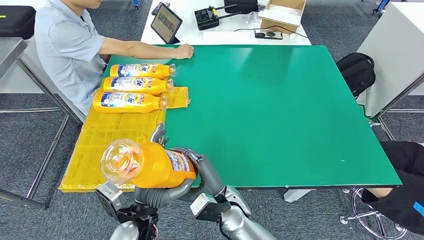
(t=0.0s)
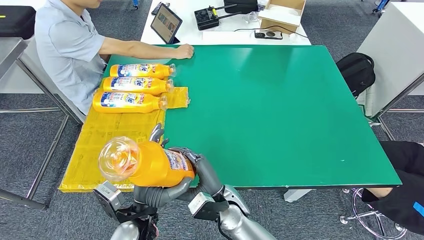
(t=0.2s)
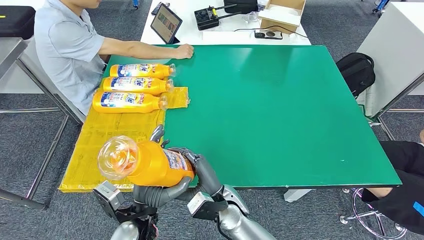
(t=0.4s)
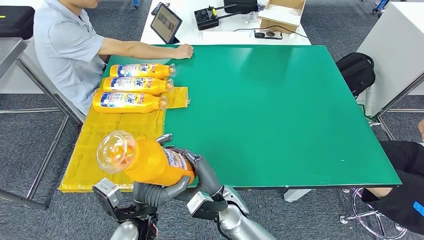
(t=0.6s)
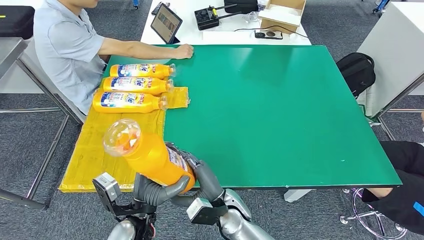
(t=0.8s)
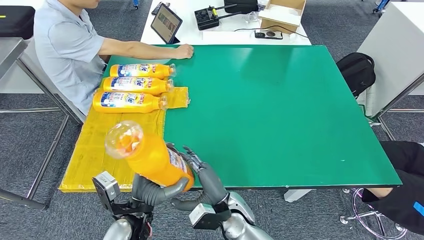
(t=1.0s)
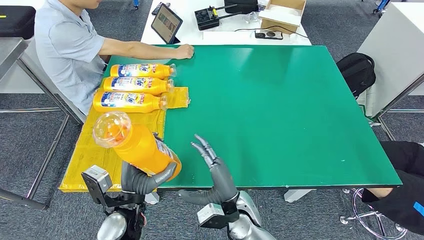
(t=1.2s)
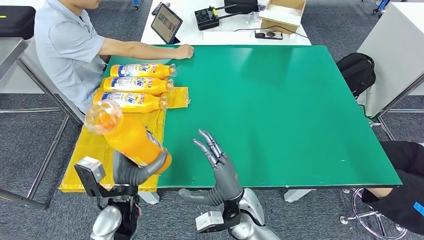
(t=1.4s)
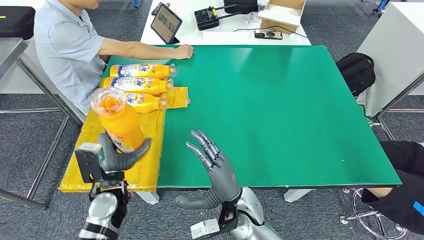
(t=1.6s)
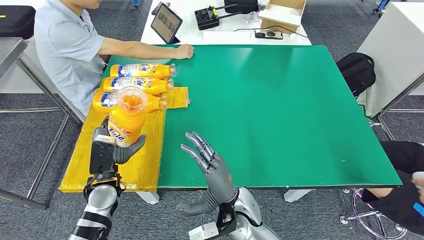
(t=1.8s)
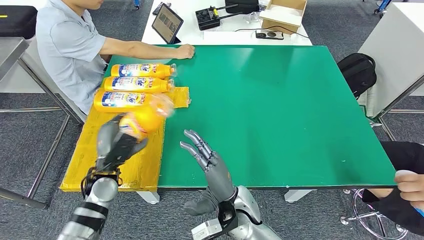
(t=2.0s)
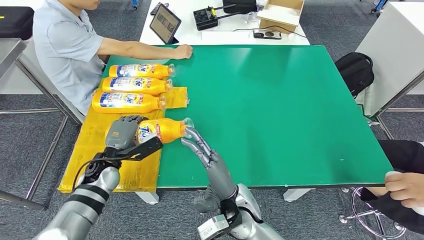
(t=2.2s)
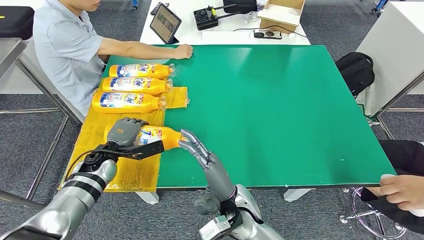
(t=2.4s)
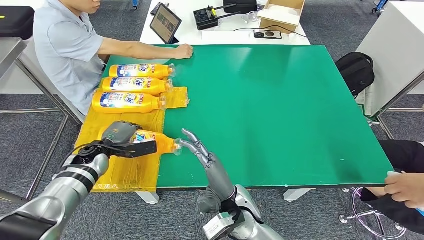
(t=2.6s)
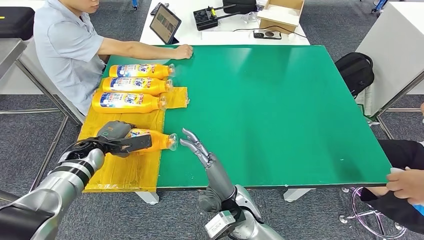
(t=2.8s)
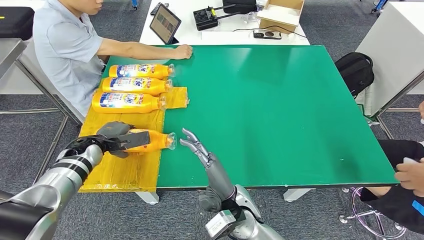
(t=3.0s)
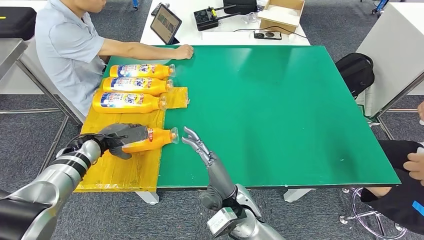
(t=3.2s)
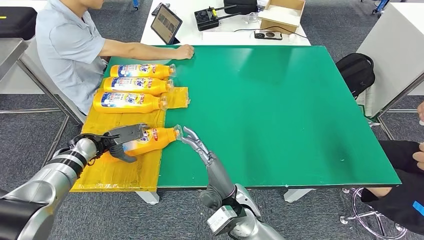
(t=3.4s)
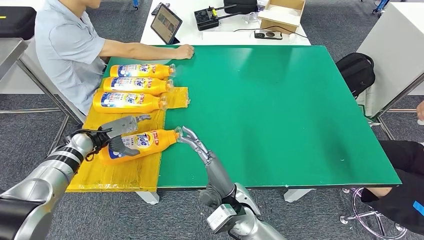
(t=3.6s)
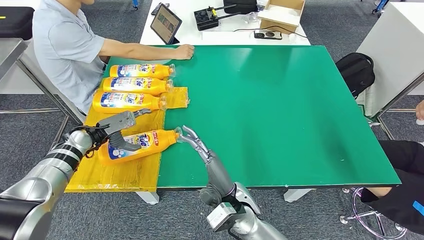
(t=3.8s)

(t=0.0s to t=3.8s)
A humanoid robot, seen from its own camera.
Step, t=0.4s - t=3.8s: Flip the fast-moving consumer goods bottle to the front side.
t=0.0s - t=1.2s: There are only small adjustments of the hands.
t=1.2s - t=2.6s: The left hand moves forward and to the left, some 25 cm. The right hand goes roughly 5 cm upward.
t=2.6s - t=3.8s: The left hand moves approximately 5 cm.

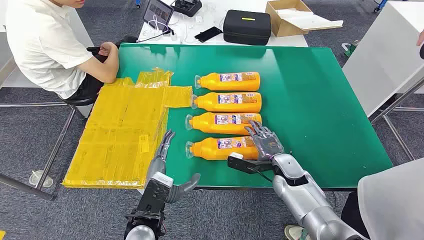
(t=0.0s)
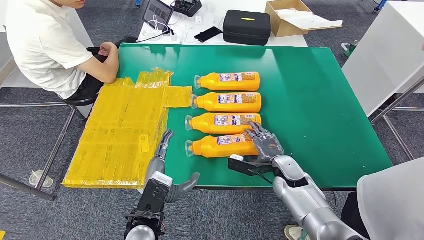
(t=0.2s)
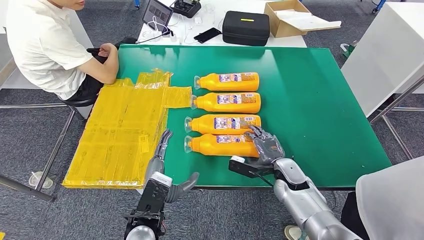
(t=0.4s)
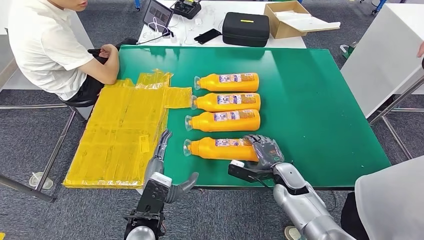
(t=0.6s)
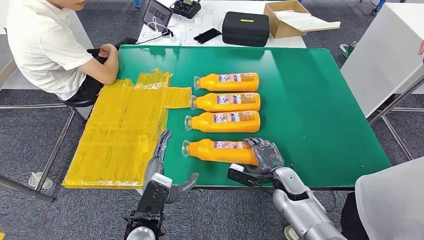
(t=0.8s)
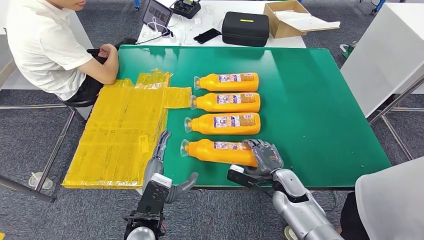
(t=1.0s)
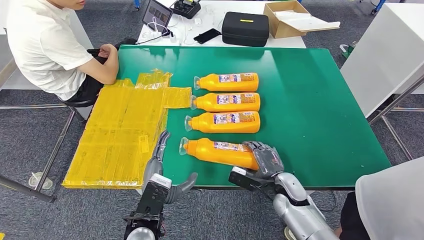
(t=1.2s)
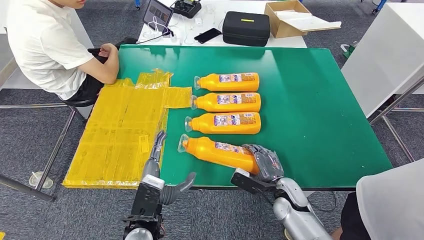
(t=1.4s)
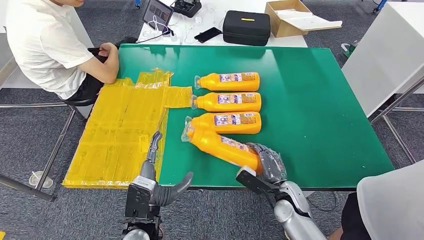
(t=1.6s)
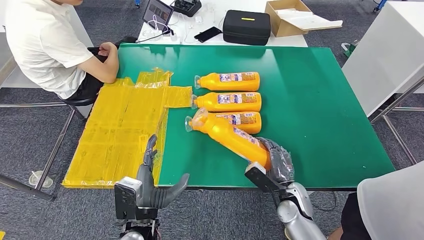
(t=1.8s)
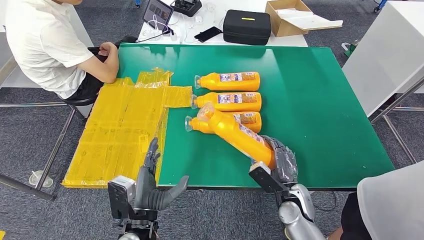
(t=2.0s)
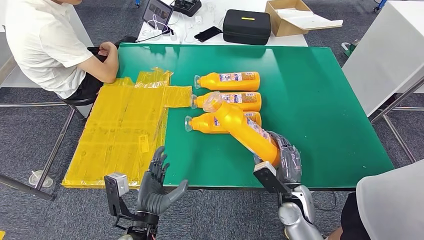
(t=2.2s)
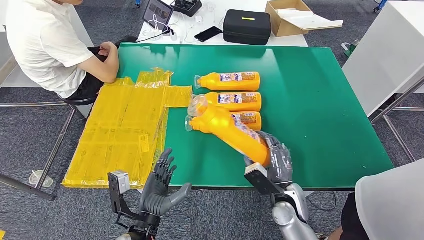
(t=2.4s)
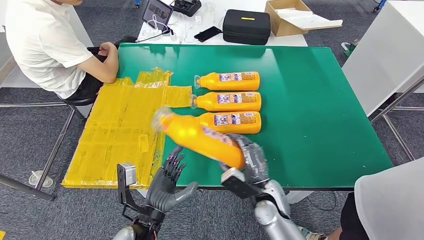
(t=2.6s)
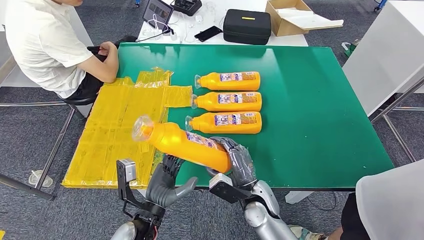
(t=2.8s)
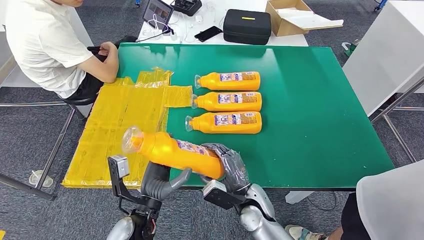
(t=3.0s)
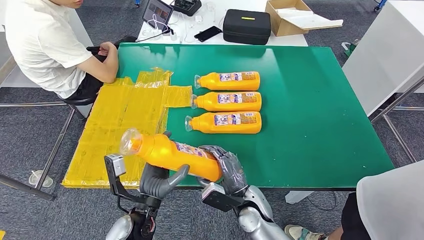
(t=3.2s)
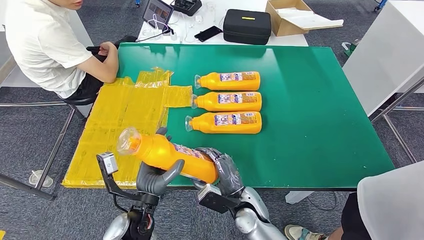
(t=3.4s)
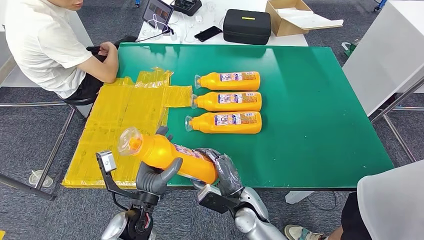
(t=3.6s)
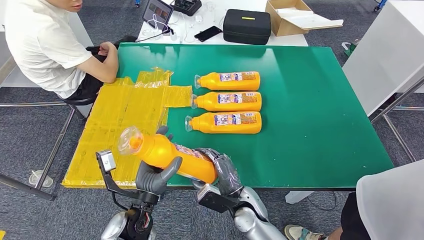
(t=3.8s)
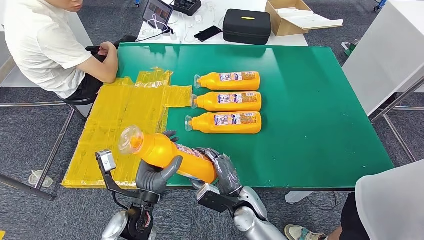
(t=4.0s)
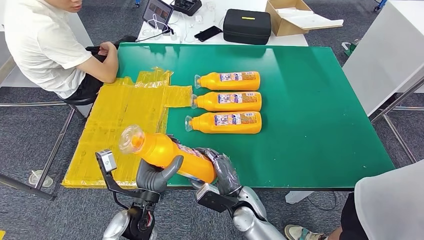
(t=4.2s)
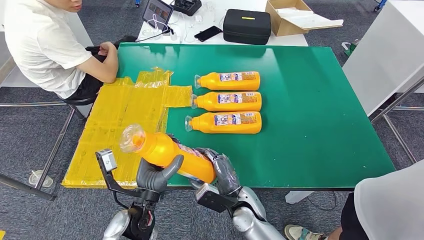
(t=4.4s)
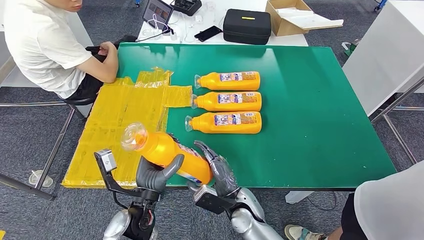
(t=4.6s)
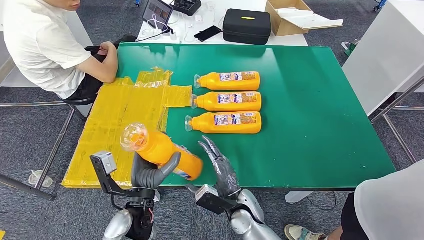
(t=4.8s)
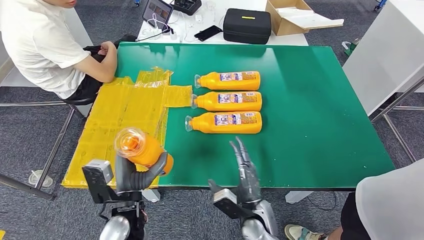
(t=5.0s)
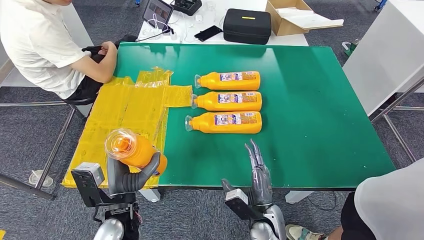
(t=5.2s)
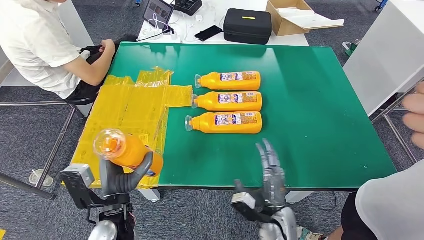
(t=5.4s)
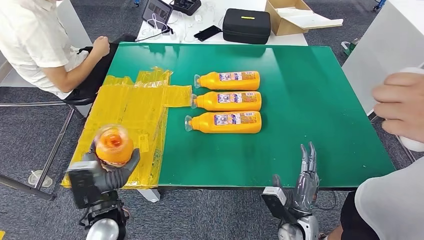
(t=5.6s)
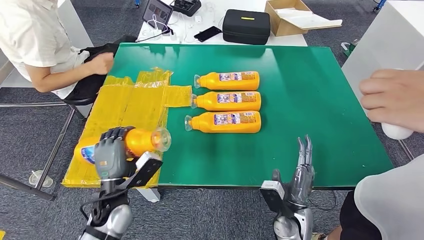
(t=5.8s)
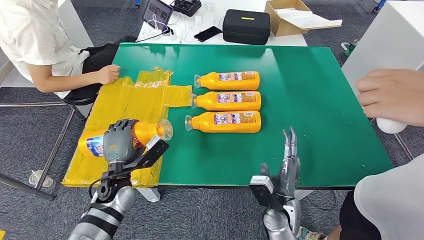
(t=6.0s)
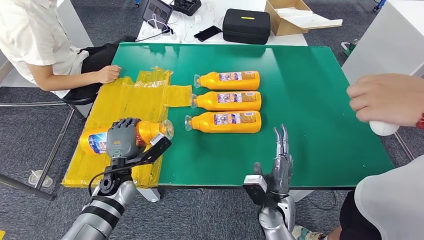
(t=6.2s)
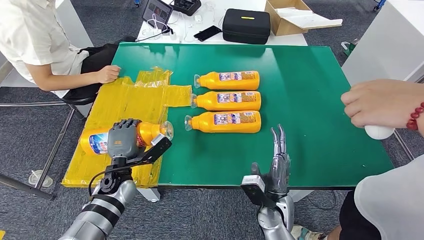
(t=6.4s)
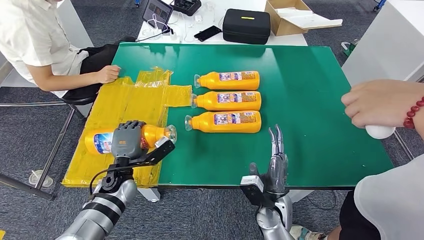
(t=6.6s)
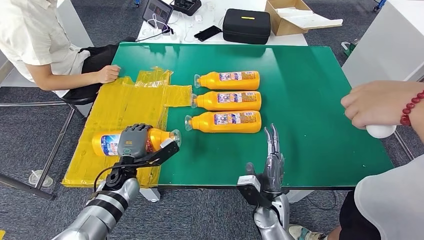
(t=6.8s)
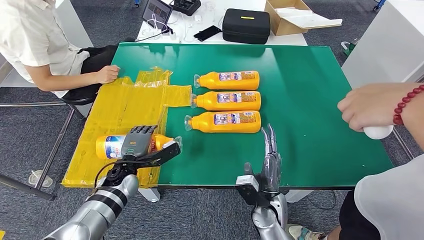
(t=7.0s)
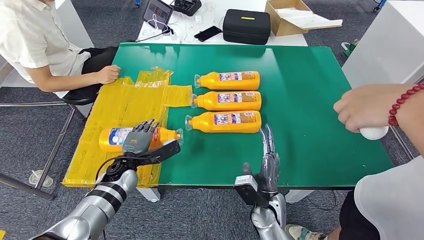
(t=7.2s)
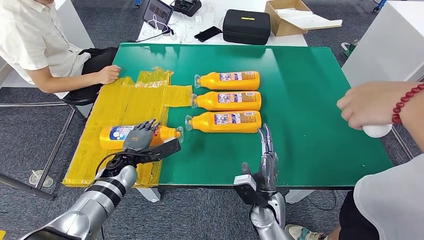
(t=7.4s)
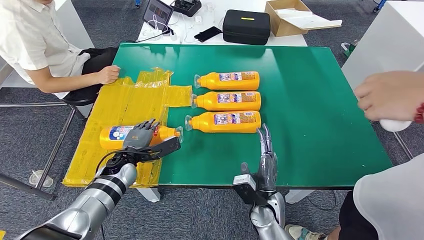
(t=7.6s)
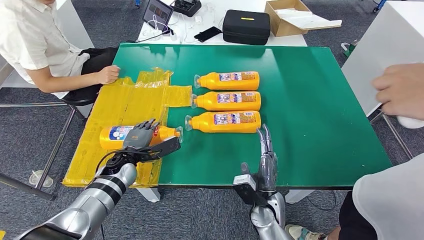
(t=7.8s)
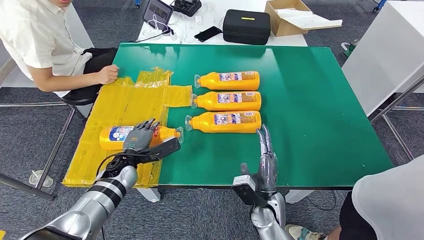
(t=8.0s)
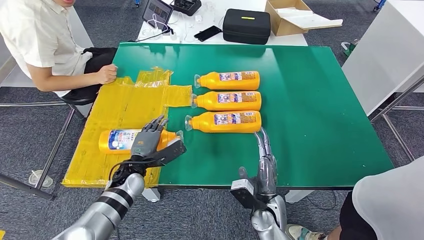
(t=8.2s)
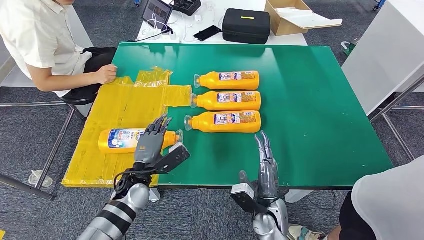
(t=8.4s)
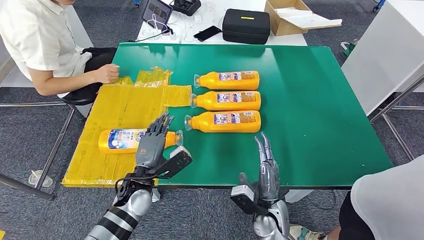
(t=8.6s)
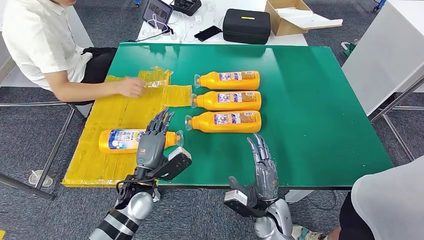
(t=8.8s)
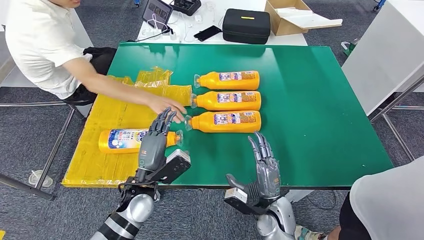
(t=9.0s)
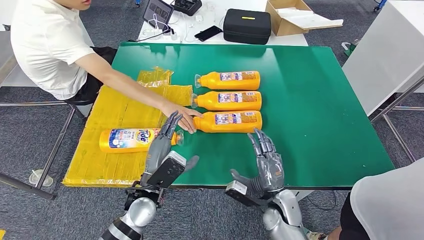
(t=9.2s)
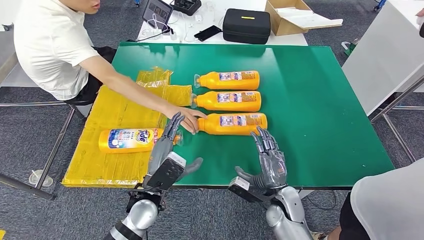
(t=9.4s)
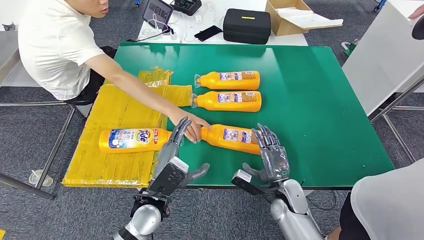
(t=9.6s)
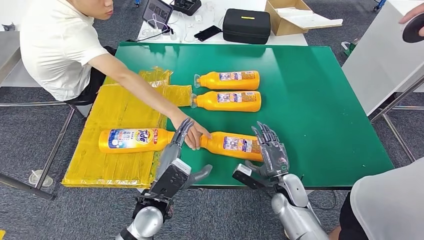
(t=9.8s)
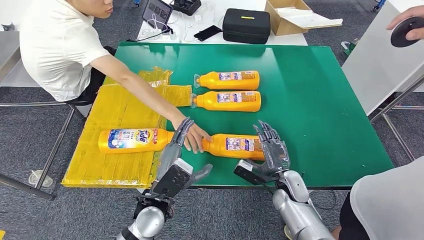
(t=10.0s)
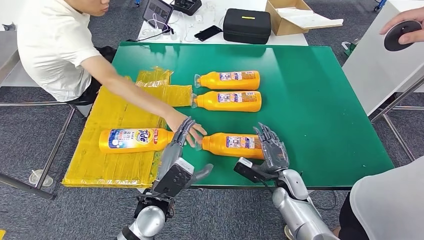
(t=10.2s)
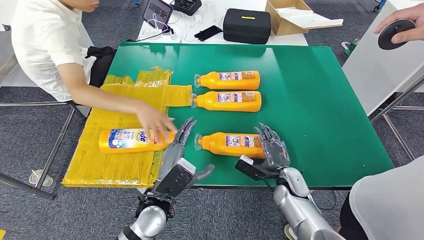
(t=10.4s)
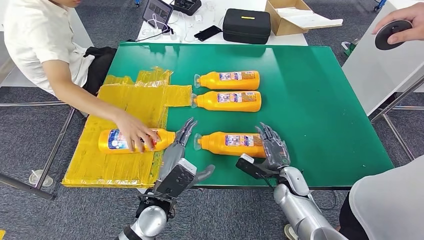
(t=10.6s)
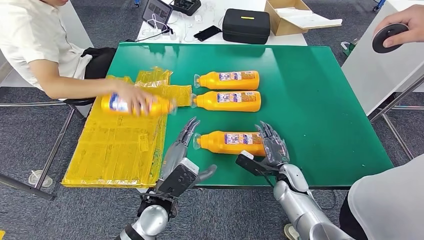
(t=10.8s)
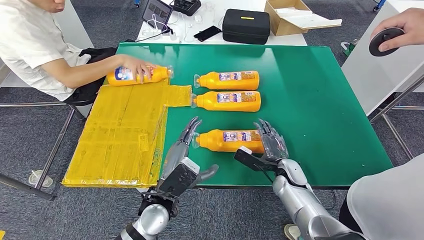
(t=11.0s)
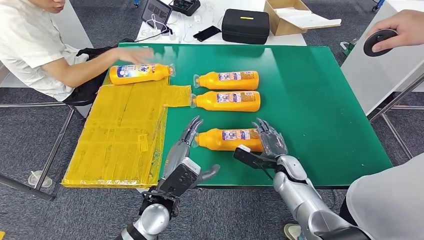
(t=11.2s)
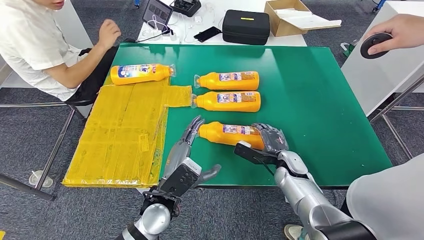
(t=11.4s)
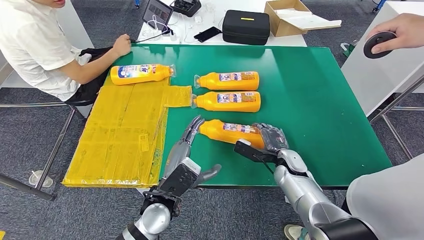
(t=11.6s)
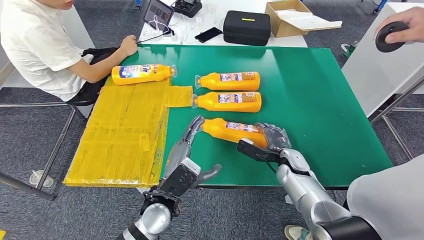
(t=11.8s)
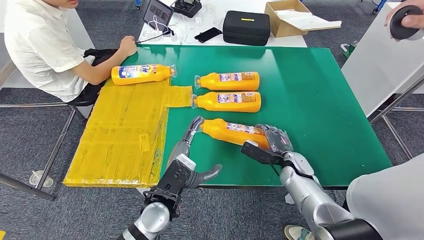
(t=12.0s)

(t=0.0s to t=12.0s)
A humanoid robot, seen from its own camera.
Step, t=0.0s - t=2.8s: Take the fast-moving consumer goods bottle from the table.
Step, t=4.6s - t=7.0s: Flip the fast-moving consumer goods bottle to the front side.
t=1.6s - t=3.0s: The right hand moves to the left, some 10 cm.
t=3.0s - t=4.4s: The hands stay close to where they were, moving slightly.
t=6.0s - t=7.6s: The left hand travels forward by approximately 5 cm.
t=9.0s - t=10.4s: The left hand ends up approximately 5 cm from where it was; the right hand is displaced forward and to the right by roughly 10 cm.

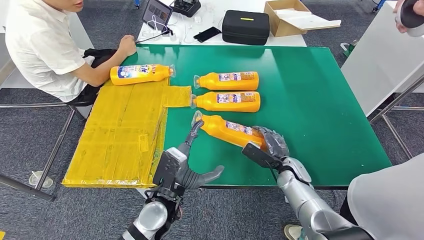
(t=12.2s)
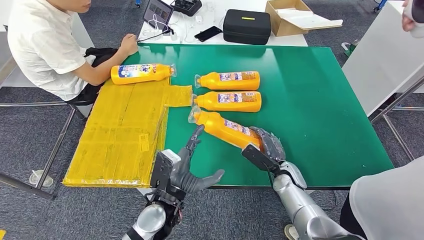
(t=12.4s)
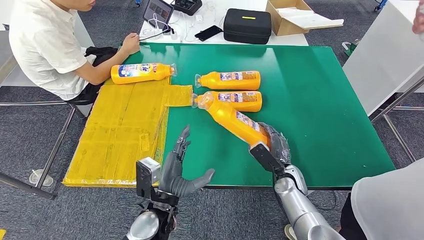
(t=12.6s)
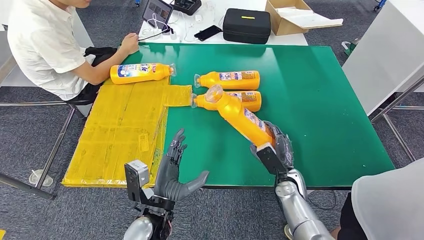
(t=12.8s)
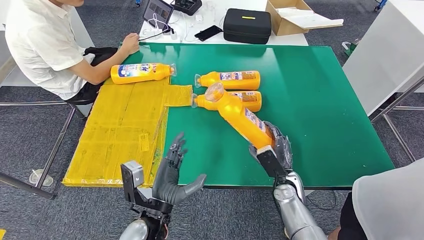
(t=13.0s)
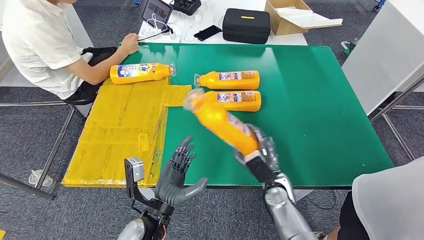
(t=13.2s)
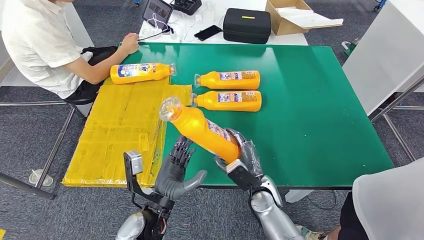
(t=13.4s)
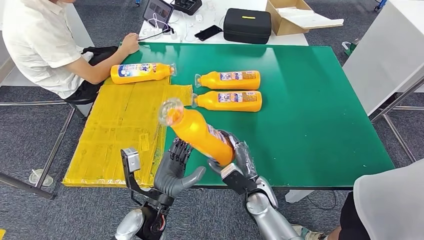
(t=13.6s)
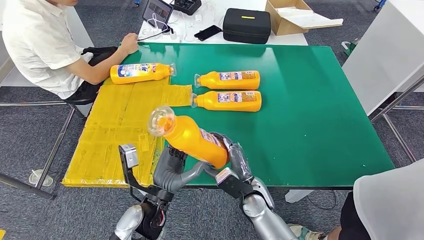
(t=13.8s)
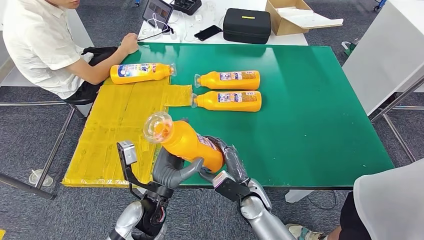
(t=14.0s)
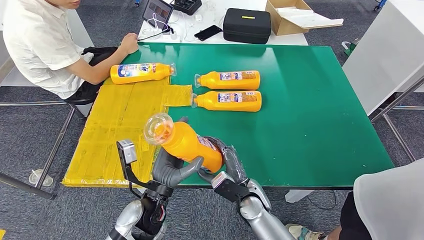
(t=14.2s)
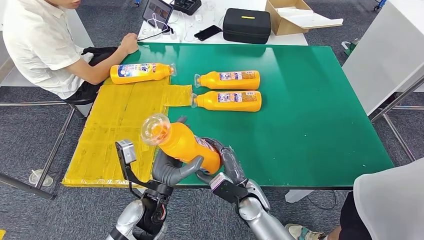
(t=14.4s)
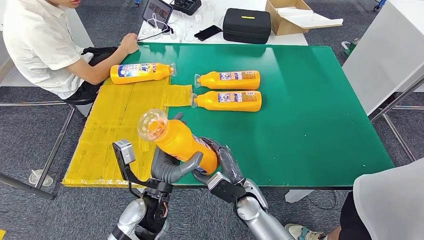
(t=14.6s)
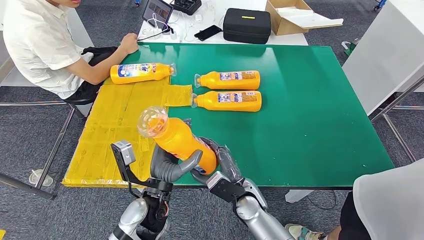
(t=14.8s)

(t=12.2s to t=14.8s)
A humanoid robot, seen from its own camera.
t=13.4s - t=14.8s: The right hand is displaced to the left by approximately 5 cm.
